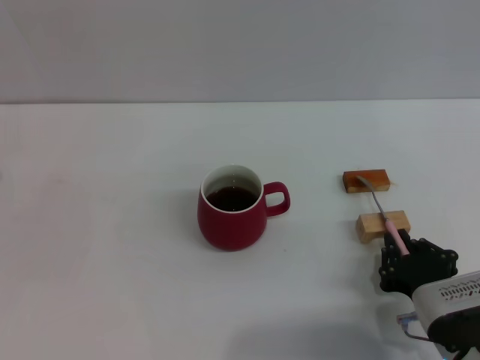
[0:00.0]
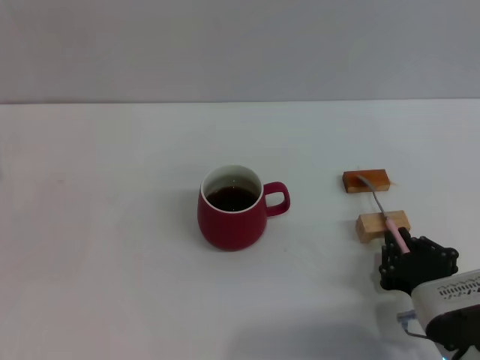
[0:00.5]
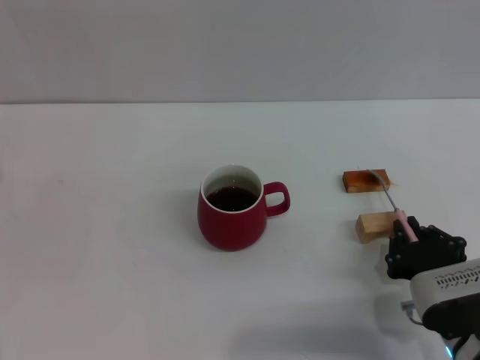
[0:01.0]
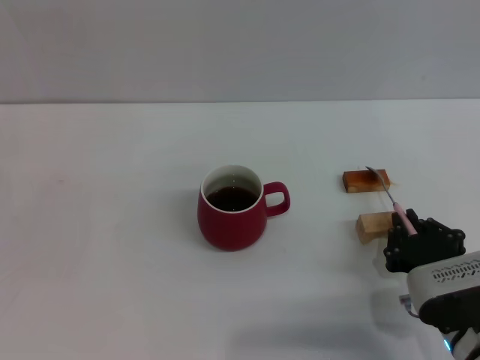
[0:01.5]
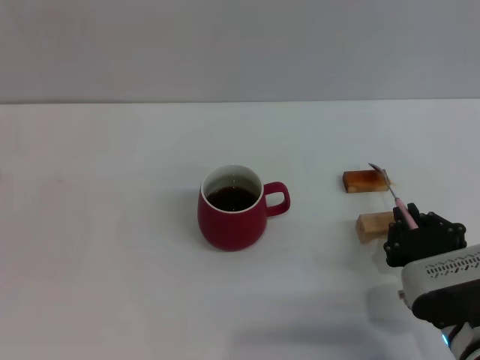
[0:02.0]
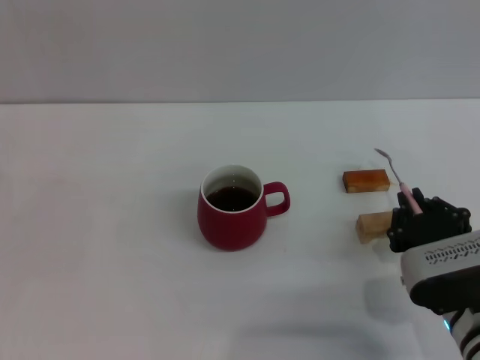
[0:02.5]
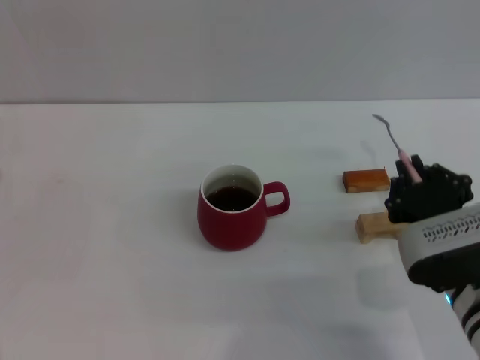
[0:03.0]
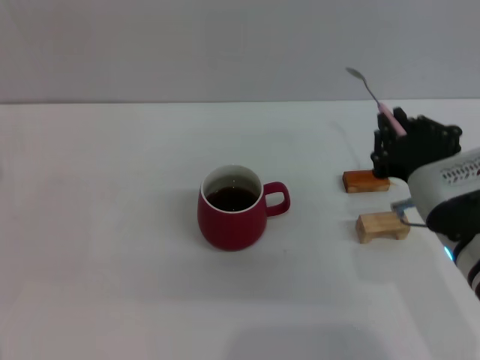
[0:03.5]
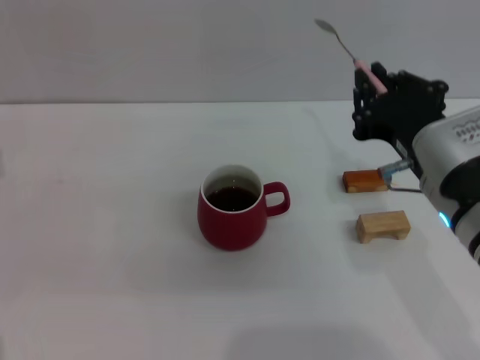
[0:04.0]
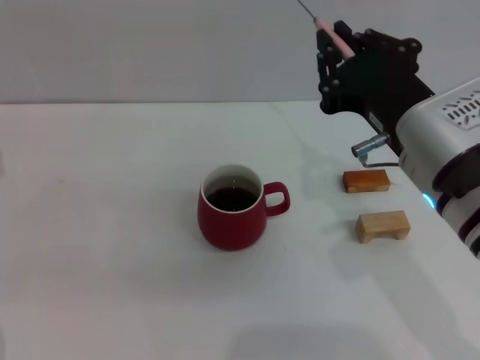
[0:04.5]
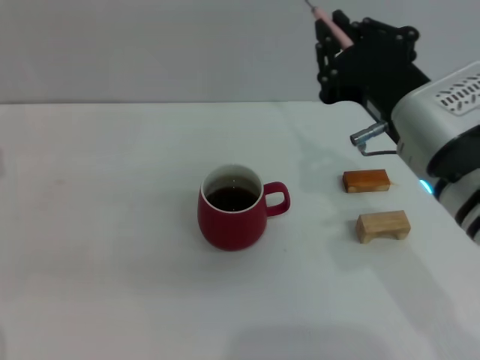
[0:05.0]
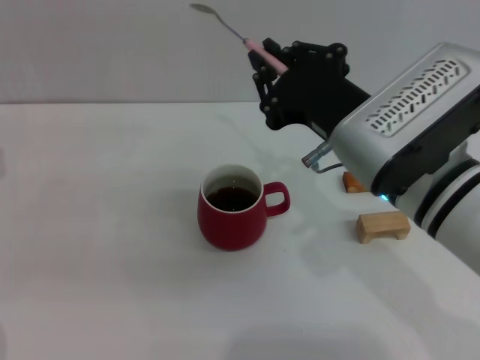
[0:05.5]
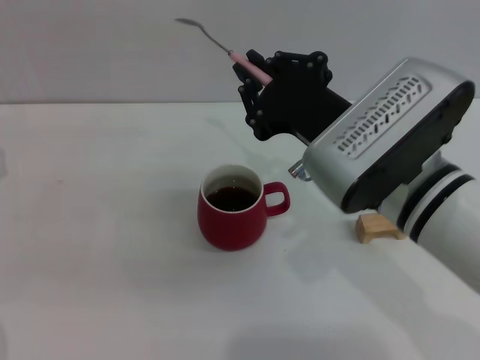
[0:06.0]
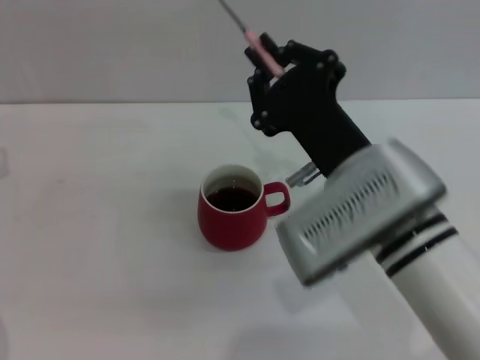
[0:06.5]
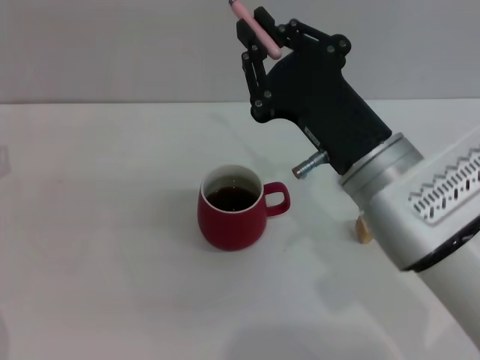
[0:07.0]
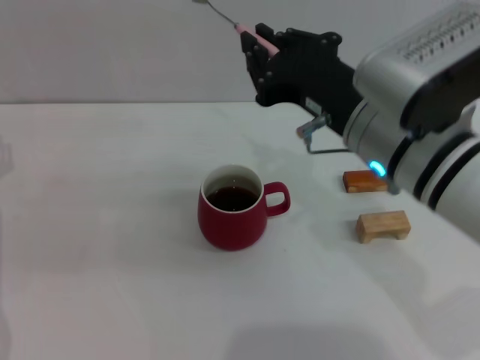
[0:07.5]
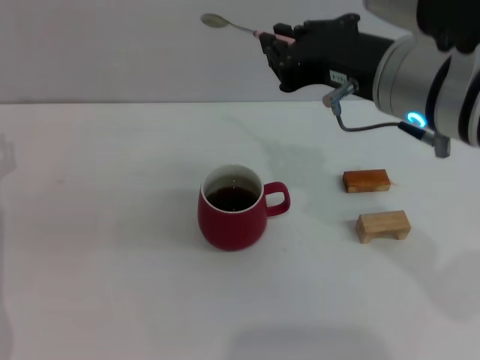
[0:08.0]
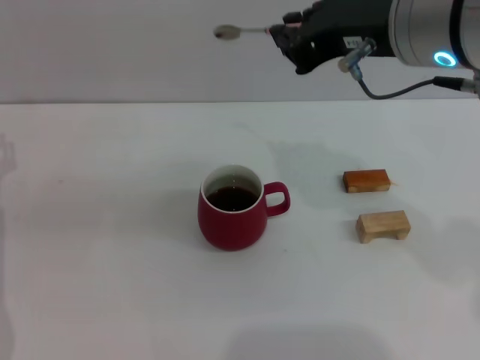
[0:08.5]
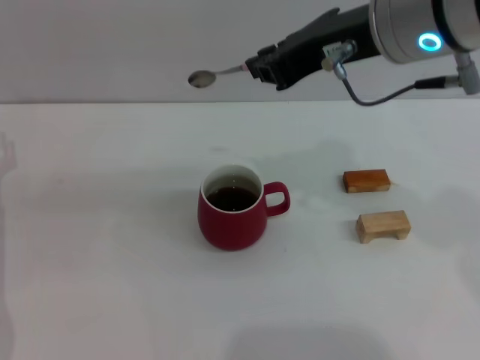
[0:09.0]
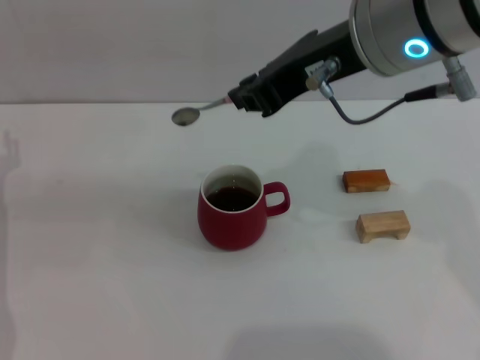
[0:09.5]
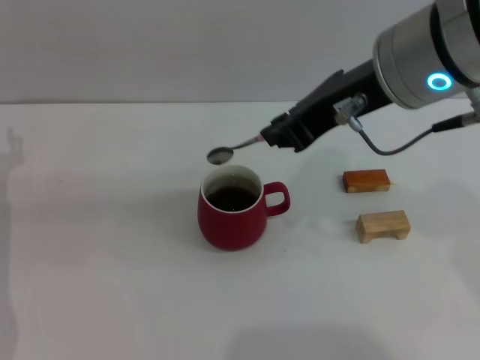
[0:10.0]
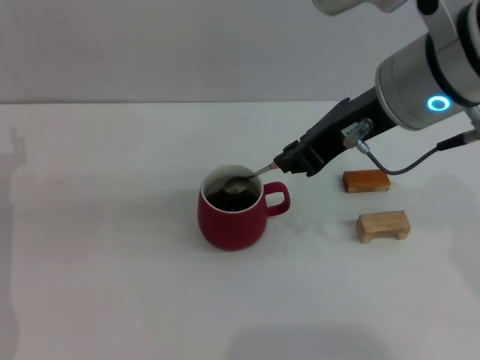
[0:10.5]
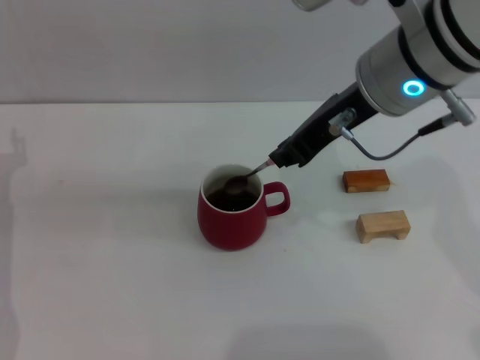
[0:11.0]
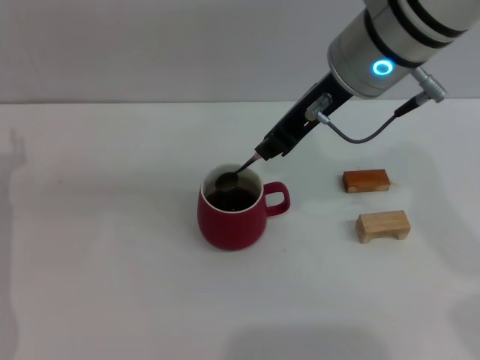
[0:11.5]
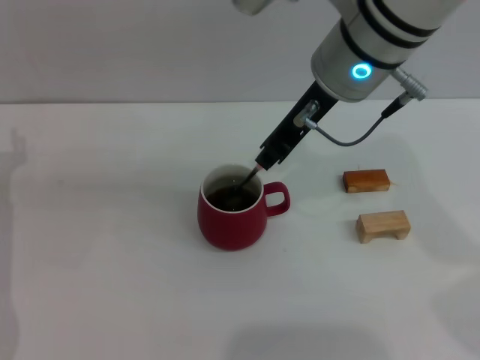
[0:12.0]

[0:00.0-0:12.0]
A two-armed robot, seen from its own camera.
Task of the whole recording: Move the red cup to the center, lift the pink spoon, stir it three times in the cup, and put the spoon into the cup.
Step, 0:00.0 to 0:03.0: Pick up the spoon with the right gripper.
0:00.0 to 0:02.0: The grippers move only a little.
0:02.0 to 0:04.0: The right gripper moves upward, roughly 15 cm.
0:04.0 to 0:06.0: The right gripper moves to the left, roughly 5 cm.
0:06.0 to 0:08.0: The right gripper travels upward by roughly 5 cm.
0:10.0 to 0:12.0: The right gripper shifts some 5 cm forward.

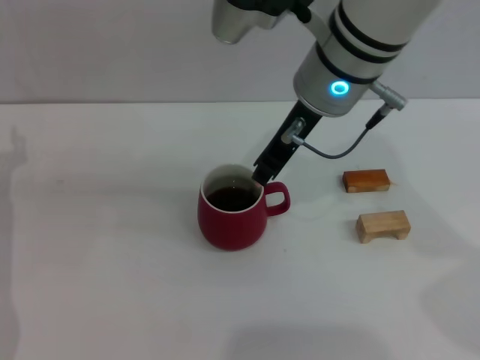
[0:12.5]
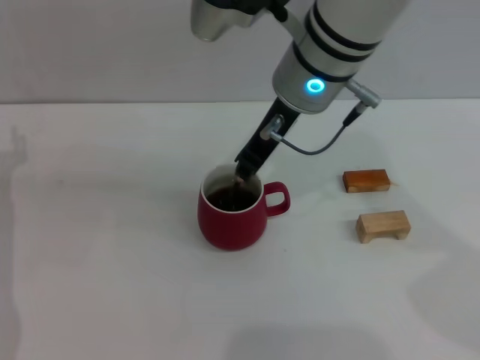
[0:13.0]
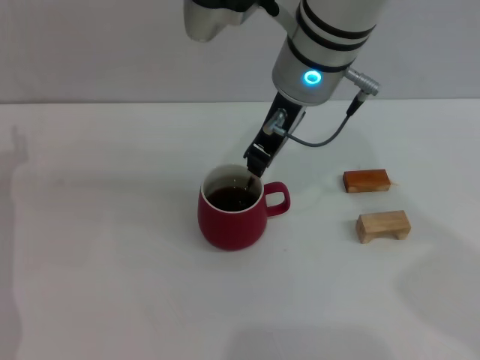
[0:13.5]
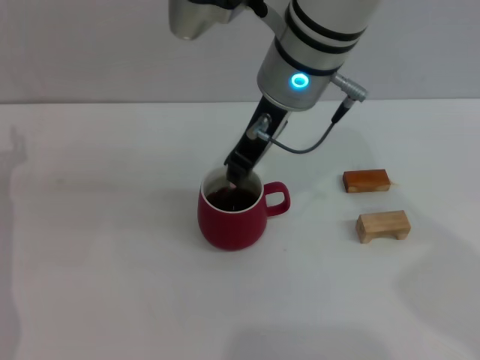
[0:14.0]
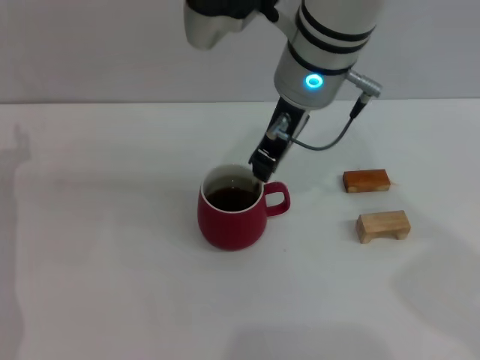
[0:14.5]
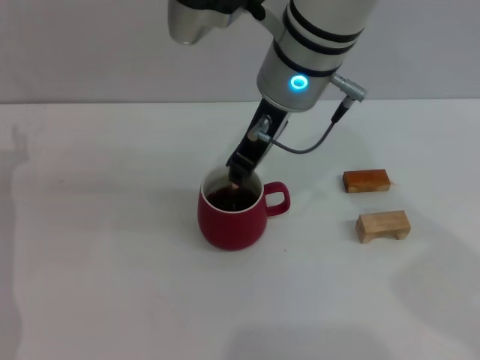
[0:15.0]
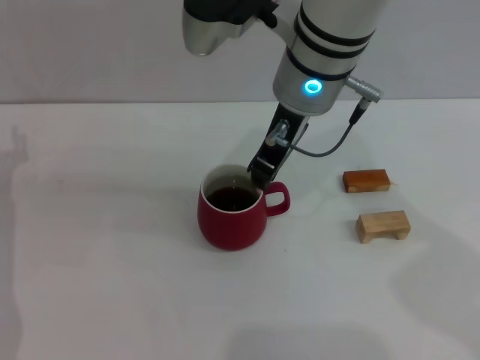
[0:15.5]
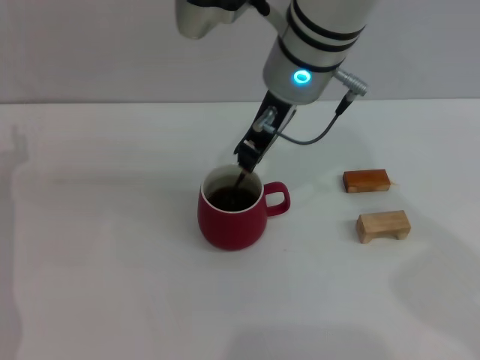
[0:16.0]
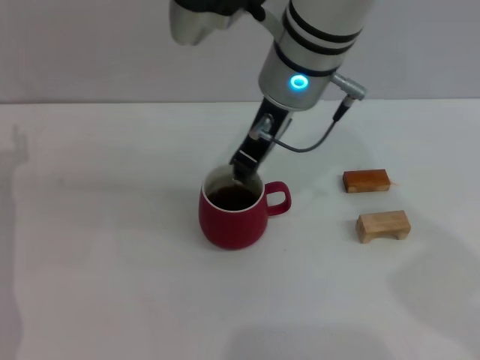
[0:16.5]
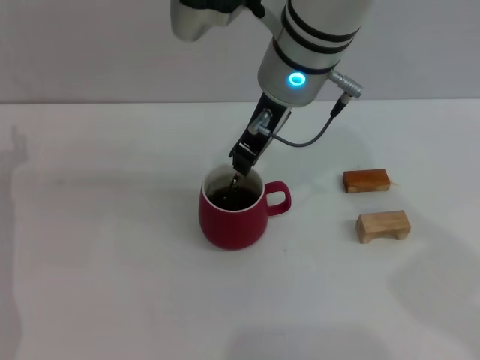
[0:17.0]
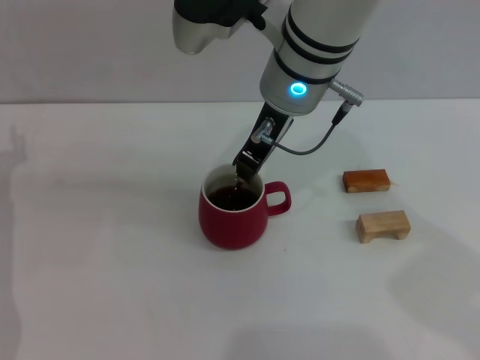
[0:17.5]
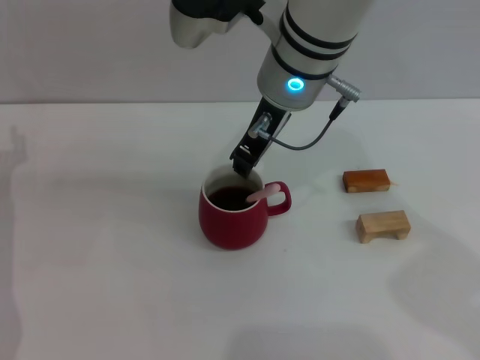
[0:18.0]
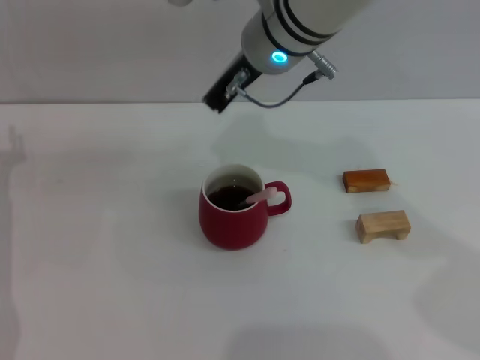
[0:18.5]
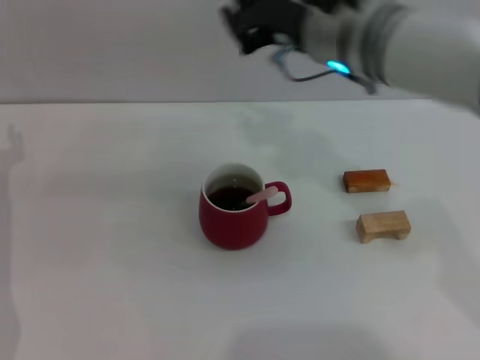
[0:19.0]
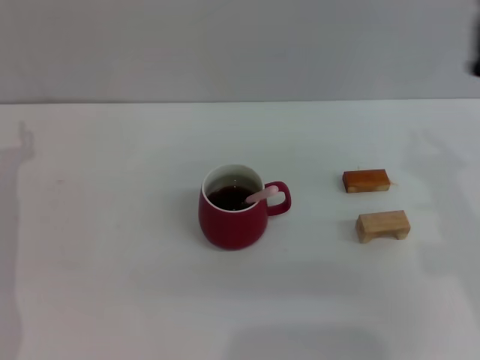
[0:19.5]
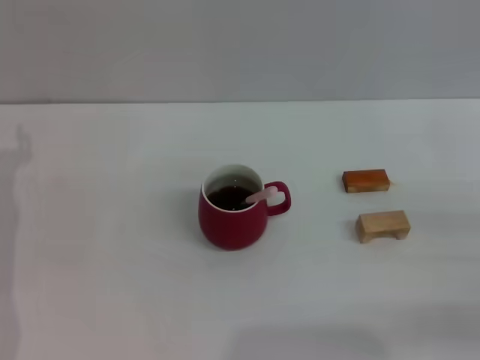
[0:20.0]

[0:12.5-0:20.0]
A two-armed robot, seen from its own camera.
Task of the whole recording: Move the red cup to the center, lift the pink spoon, stir it three times in the cup, and put the spoon into the cup.
Step, 0:12.5 to 0:18.0: Stir the coffee in the cup with the right gripper.
0:12.5 to 0:16.5: The grippers move only a little.
0:16.5 to 0:18.0: Both grippers stay about where they are.
0:18.0 to 0:20.0: The right gripper heads to the right, downward and backward, covering roughly 40 cm.

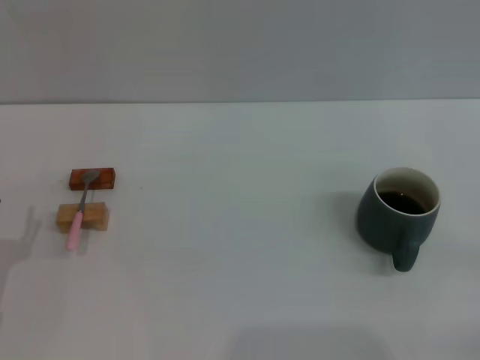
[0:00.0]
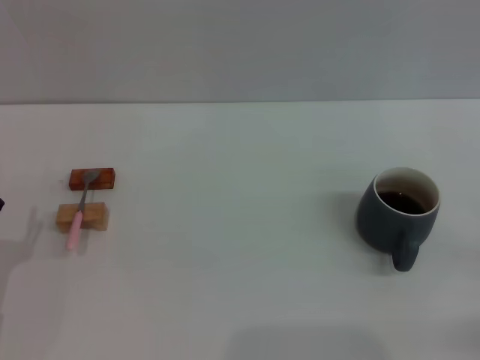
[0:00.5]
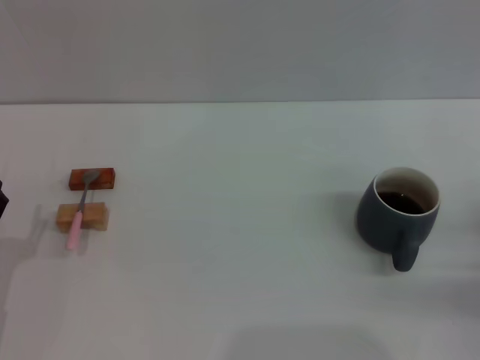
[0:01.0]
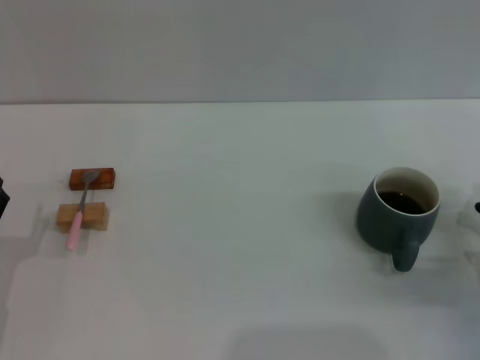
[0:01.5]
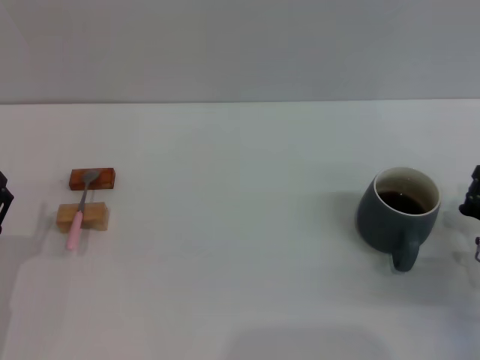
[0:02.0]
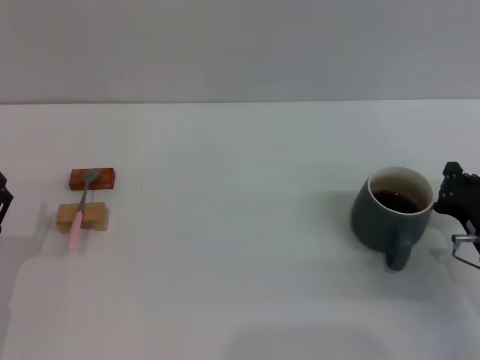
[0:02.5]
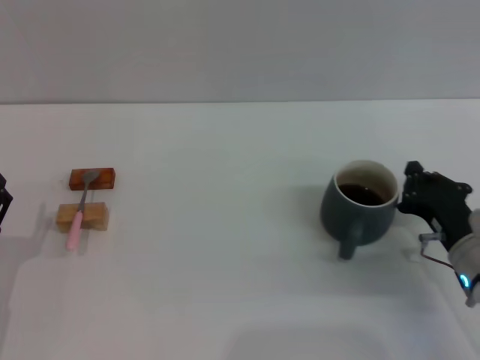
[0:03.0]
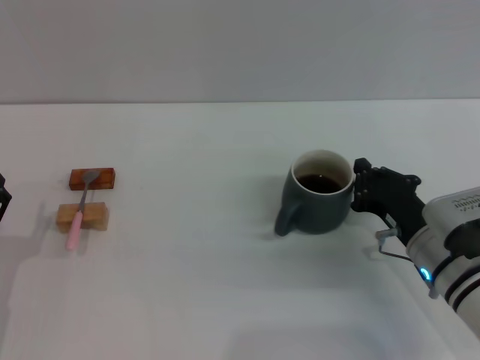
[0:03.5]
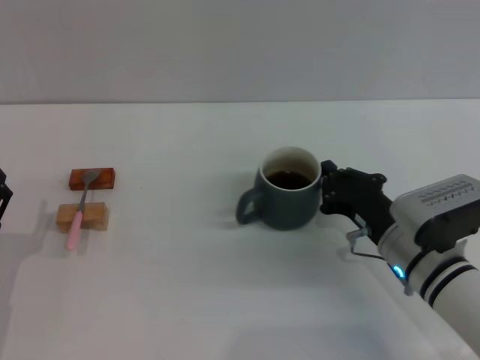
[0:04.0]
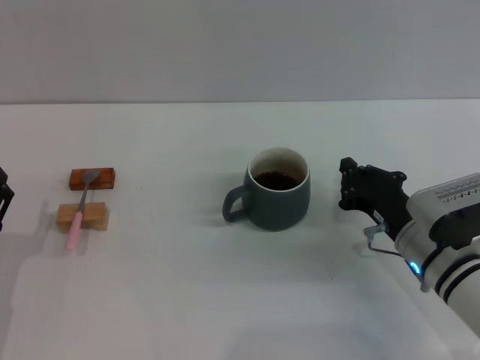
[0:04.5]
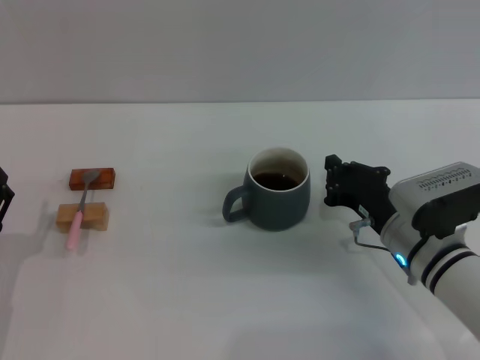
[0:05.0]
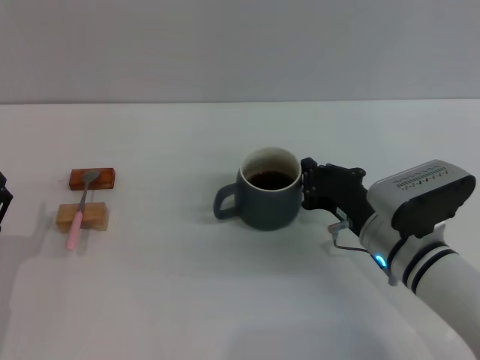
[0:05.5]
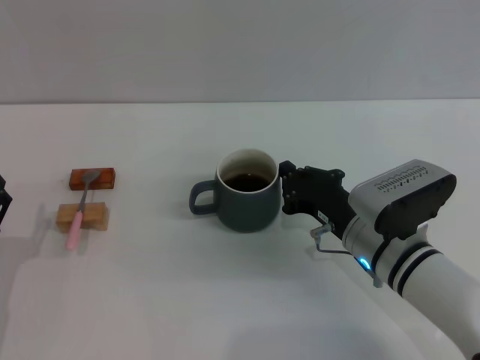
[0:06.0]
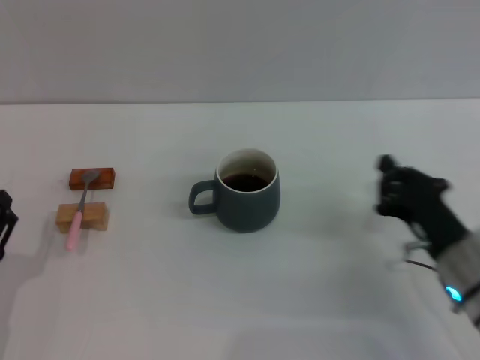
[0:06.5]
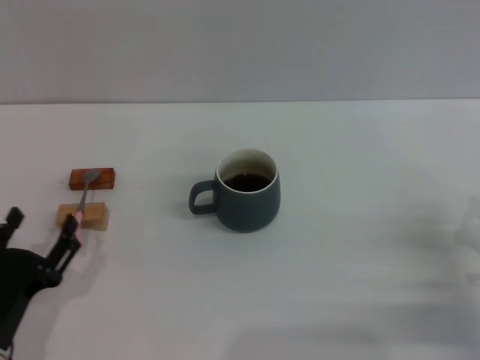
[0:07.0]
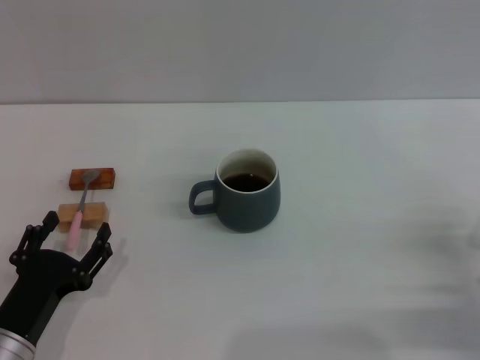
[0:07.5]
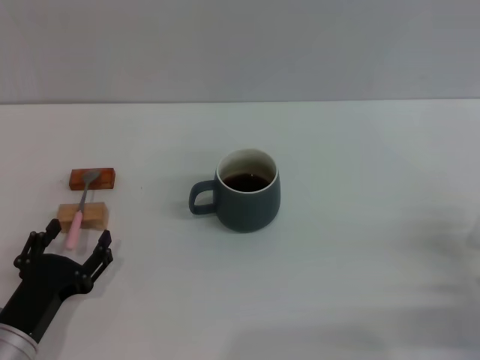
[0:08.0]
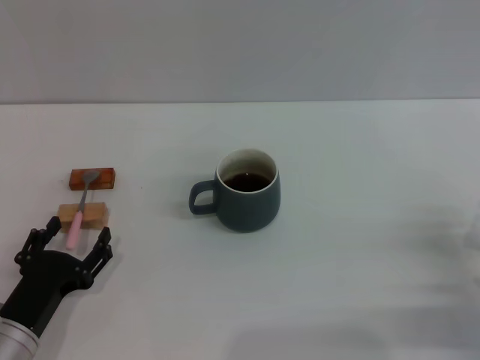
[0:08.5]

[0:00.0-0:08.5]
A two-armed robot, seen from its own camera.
Task of the whole recording: Move the grey cup to the center, lift the pink spoon, stir it three times in the cup, and put the spoon into the cup.
Step, 0:00.0 to 0:06.0: Move the cup with coffee to the center of view with the right gripper.
0:00.0 to 0:02.0: The right gripper goes roughly 10 cm to the left and forward.
0:02.0 to 0:04.0: The right gripper is displaced to the left by about 10 cm.
0:04.0 to 0:06.5: The right gripper changes place by approximately 5 cm.
0:06.5 to 0:08.5: The left gripper moves some 5 cm. The right gripper moves to the right, about 10 cm.
